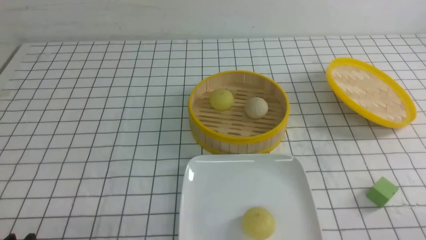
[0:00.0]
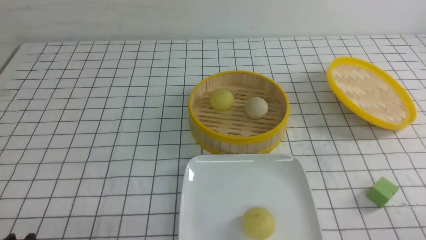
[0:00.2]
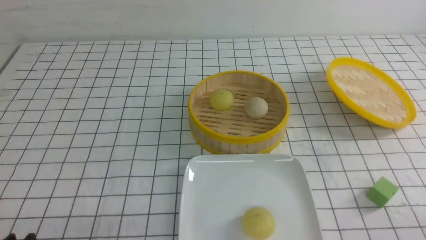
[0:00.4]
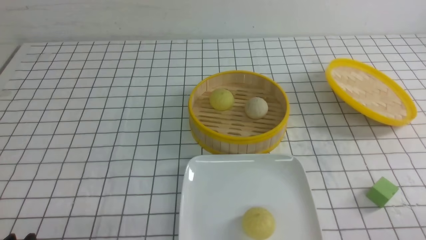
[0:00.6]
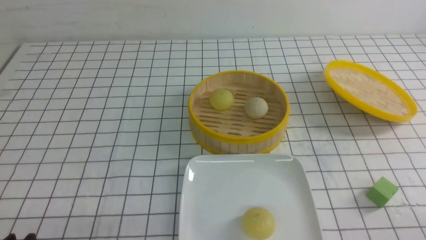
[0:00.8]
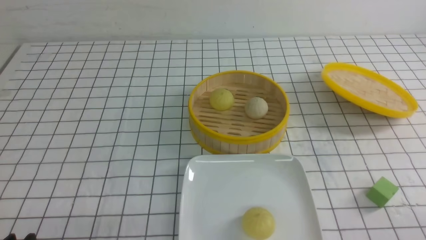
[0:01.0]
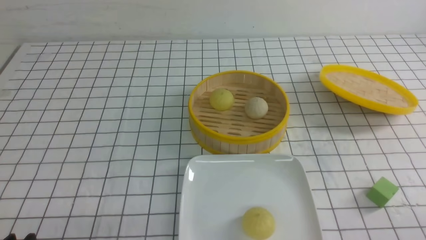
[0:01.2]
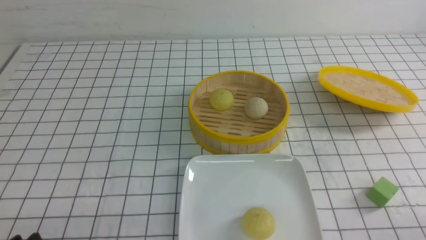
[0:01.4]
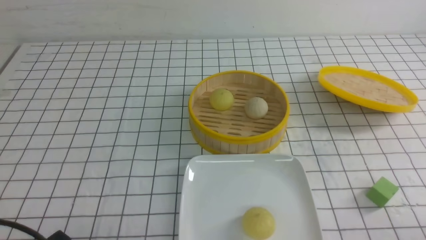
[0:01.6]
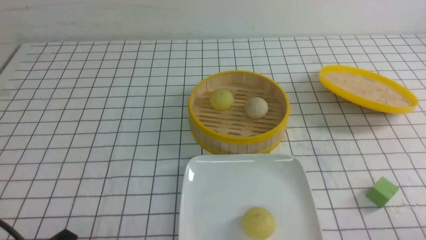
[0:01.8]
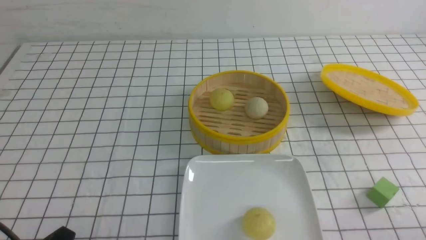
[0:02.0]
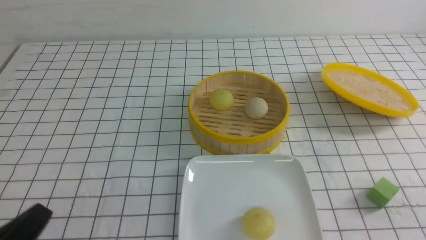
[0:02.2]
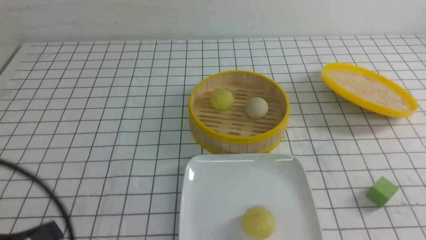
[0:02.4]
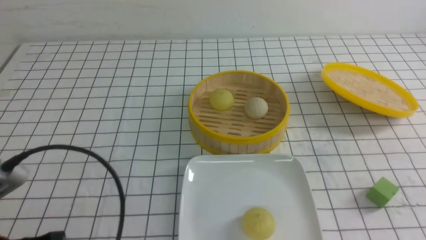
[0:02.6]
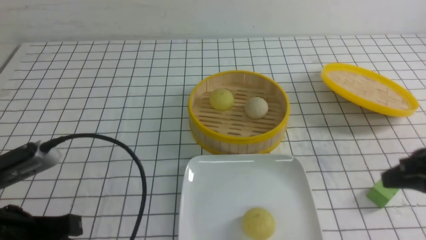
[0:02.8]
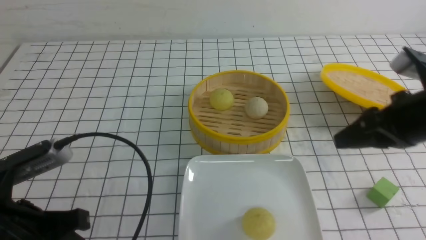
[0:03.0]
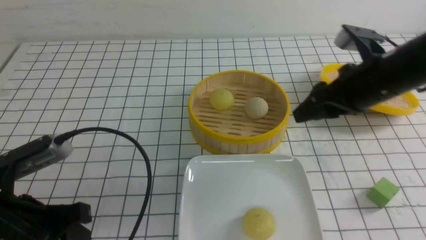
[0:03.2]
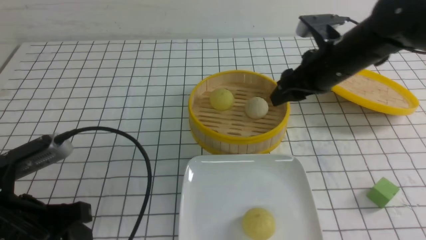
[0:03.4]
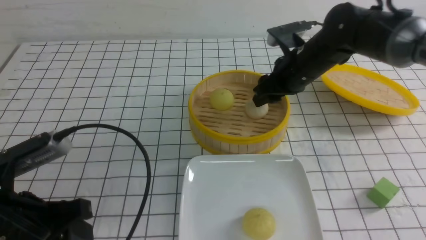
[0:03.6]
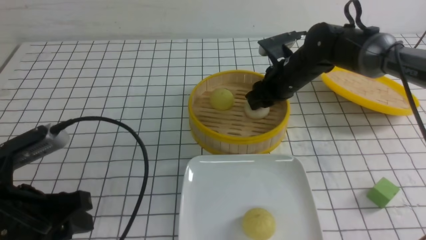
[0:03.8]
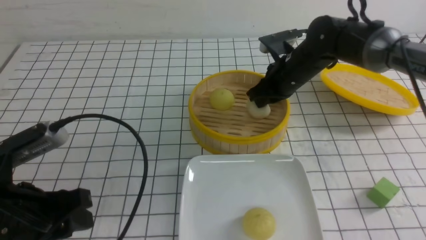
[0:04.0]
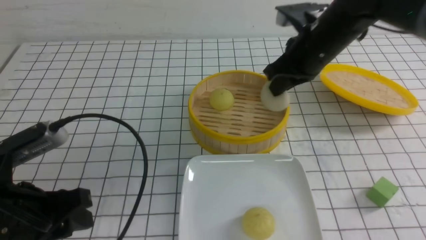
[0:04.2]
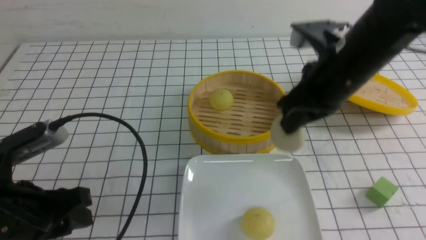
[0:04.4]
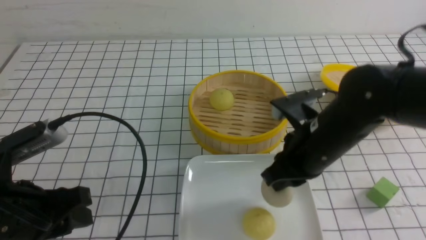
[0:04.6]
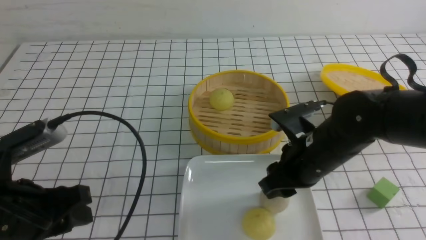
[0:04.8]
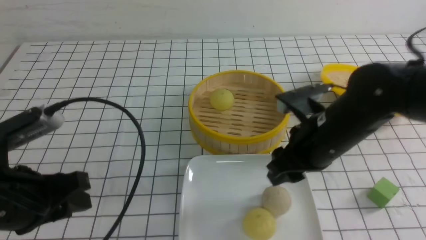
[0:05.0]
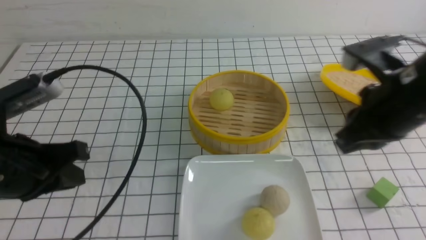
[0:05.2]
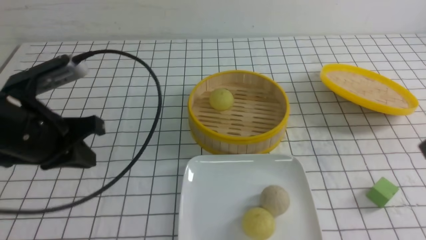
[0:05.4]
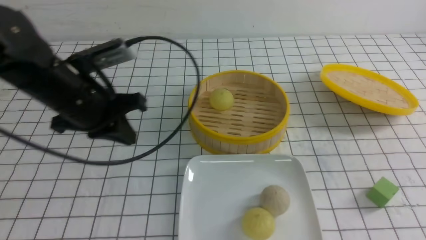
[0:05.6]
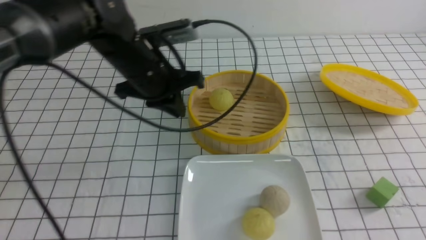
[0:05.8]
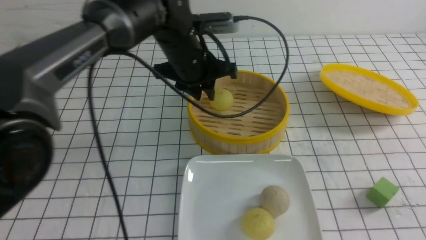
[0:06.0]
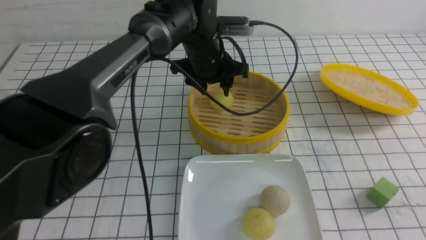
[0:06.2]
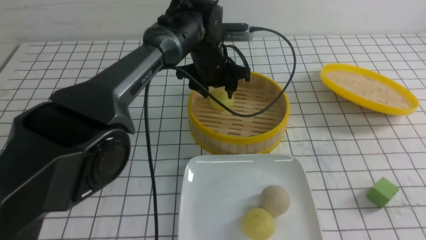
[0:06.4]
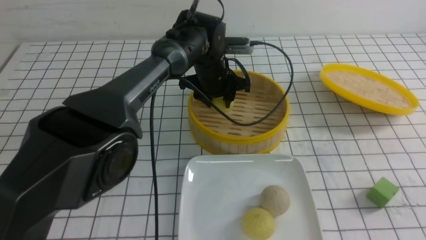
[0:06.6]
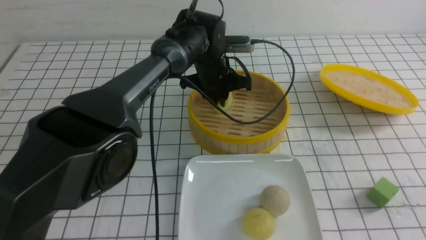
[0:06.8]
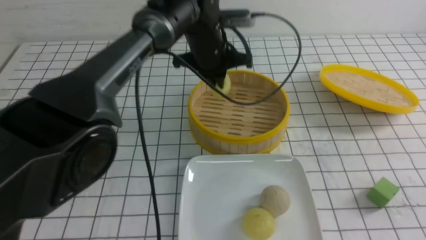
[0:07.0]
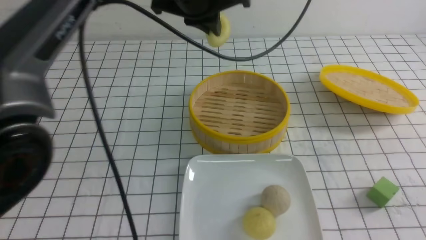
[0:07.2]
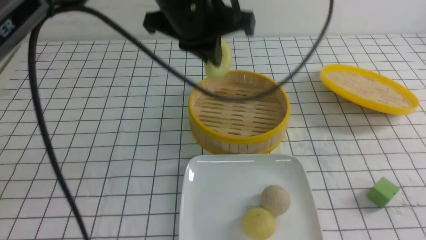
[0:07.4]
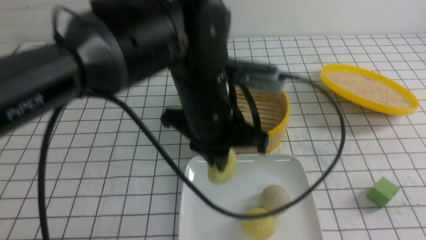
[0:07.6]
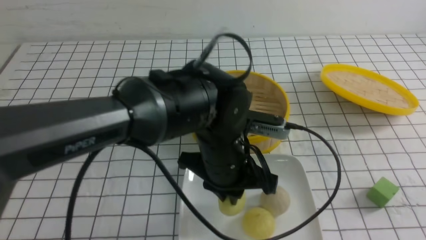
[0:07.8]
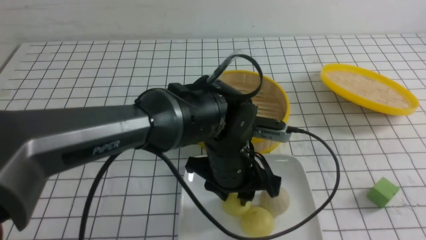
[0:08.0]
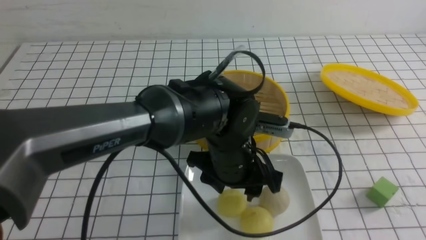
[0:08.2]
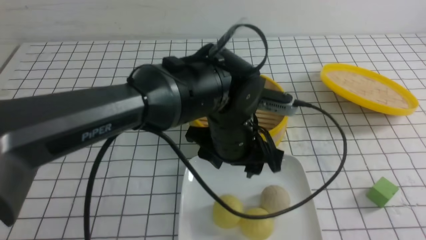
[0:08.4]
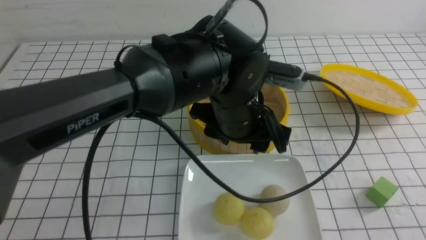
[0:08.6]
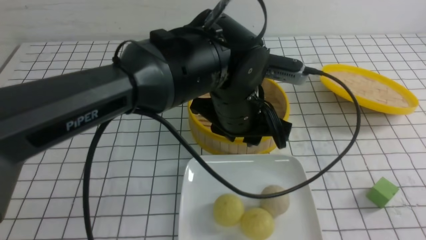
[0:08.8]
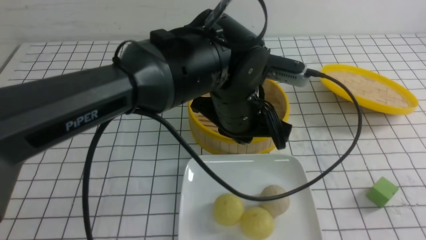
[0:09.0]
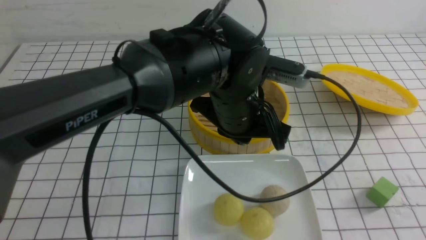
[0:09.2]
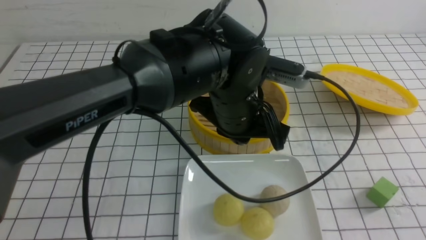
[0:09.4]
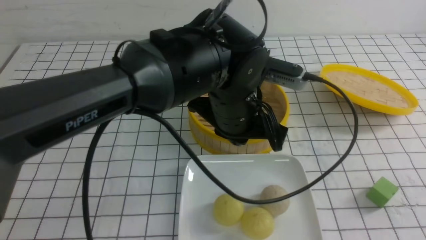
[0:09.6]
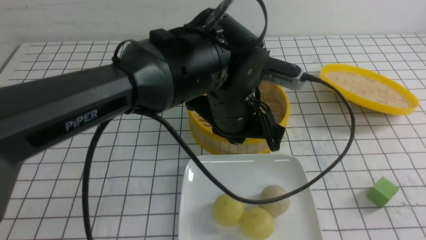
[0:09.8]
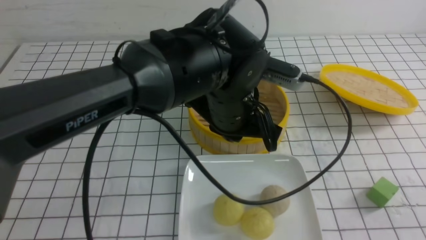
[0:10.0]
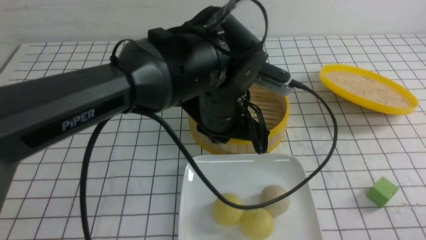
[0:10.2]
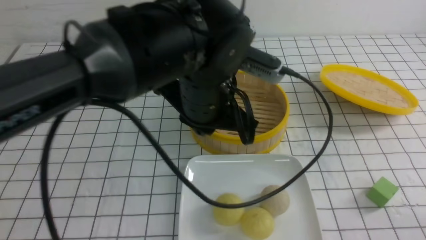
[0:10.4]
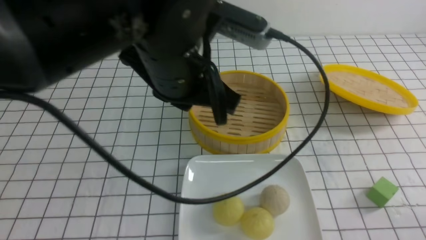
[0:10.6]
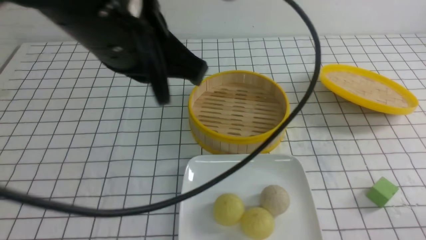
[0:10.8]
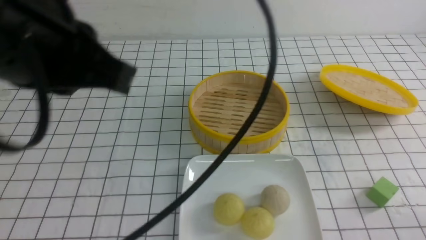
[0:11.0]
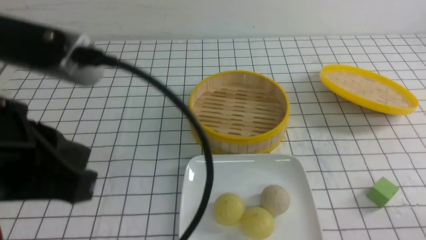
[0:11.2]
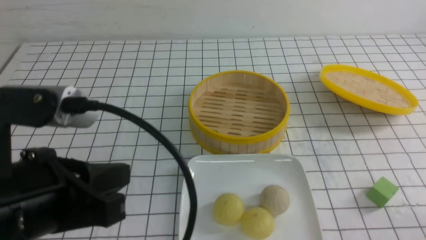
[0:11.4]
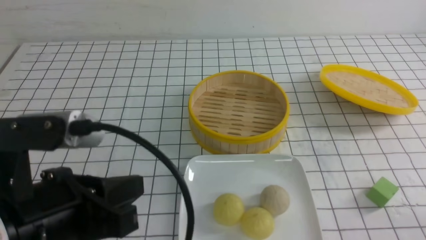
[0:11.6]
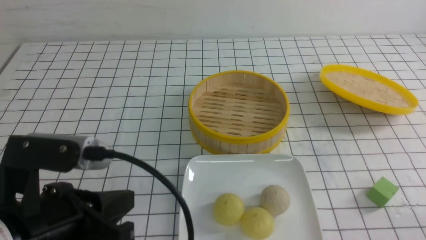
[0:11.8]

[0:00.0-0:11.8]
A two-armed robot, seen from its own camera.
Step, 0:00.0 to 0:04.0: use the right arm to grab the steamed stuffed bun that is closest to it.
Step, 0:04.2 to 0:05.0: use the right arm to put the steamed stuffed bun into the plate.
Step, 0:05.4 to 0:06.8: use the left arm to grab the steamed stuffed bun that is closest to it.
Step, 0:07.2 to 0:09.0: use the left arm to put the steamed stuffed bun into the plate.
0:01.4 to 0:03.0: The left gripper goes roughly 10 cm forward and upward; the right gripper shifts approximately 25 cm forward and upward, and closes, then opens again.
0:03.0 to 0:04.4: The right gripper heads to the left, covering about 10 cm, reaches approximately 20 cm forward, then returns, and closes its fingers.
0:04.4 to 0:06.0: The left gripper is displaced forward and to the right by about 30 cm, and closes, then opens again; the right gripper is displaced backward and to the right by approximately 25 cm, and opens and closes again.
0:06.0 to 0:07.4: The left gripper moves backward and upward, about 10 cm, and closes its fingers.
0:07.4 to 0:08.8: The left gripper travels downward by approximately 10 cm, and opens up; the right gripper heads backward, covering some 10 cm.
0:08.8 to 0:10.4: The left gripper shifts approximately 5 cm upward, and closes its fingers; the right gripper is displaced downward by approximately 10 cm.
0:10.4 to 0:11.8: The left gripper heads backward and to the left, covering approximately 20 cm.

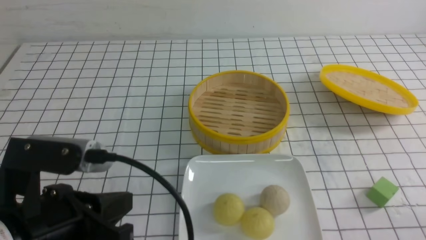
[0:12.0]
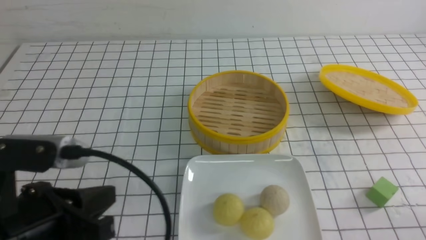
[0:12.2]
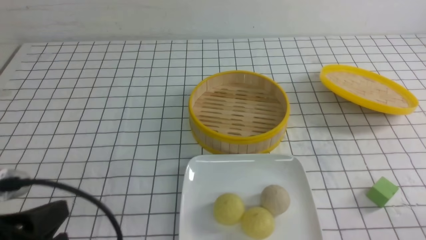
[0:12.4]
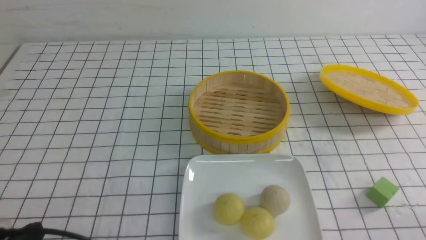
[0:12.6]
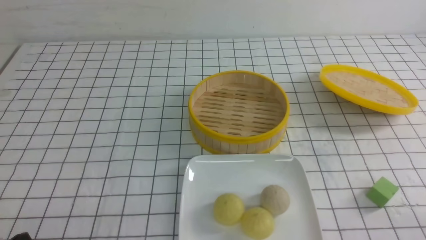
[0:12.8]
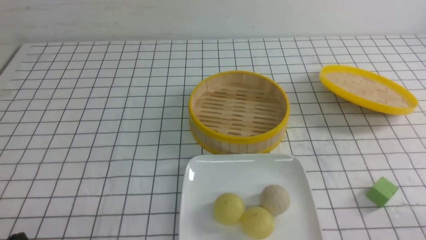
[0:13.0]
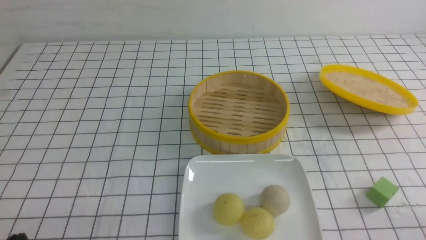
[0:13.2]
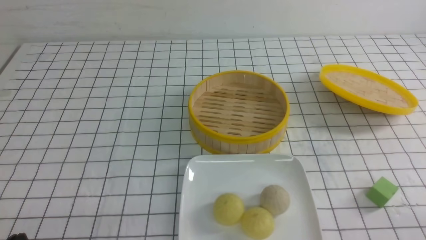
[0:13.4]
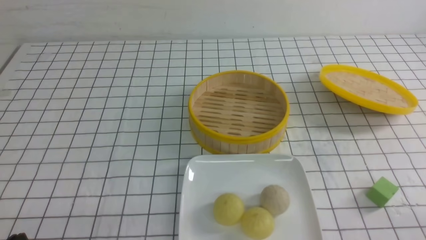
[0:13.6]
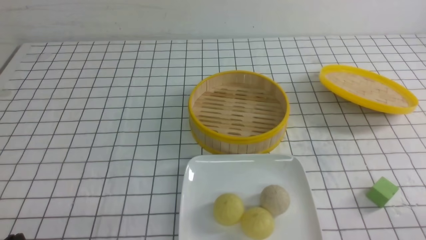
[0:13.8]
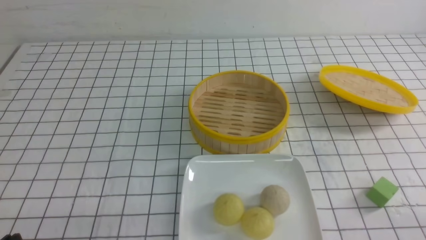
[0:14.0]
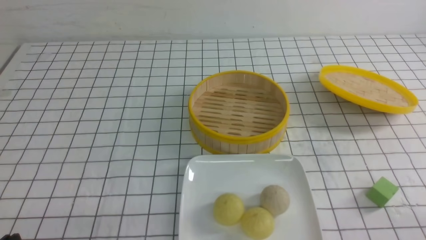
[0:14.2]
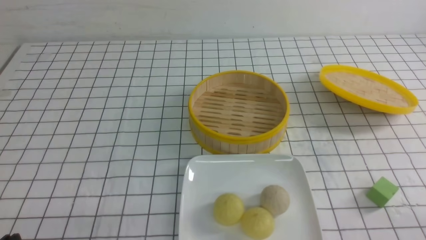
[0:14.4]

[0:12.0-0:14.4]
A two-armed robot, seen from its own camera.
0:12.0 to 0:13.2: The left gripper is displaced downward, to the left and backward by roughly 15 cm.

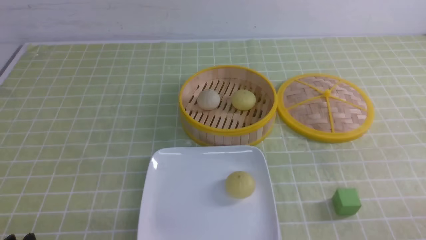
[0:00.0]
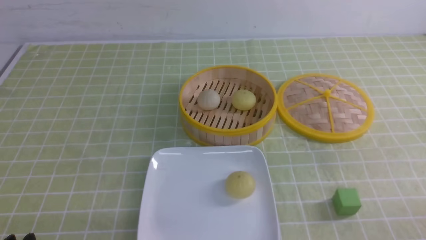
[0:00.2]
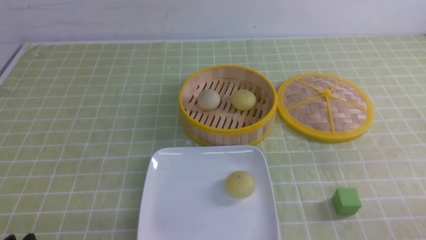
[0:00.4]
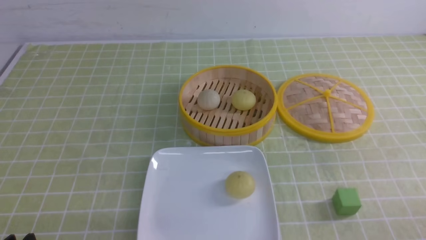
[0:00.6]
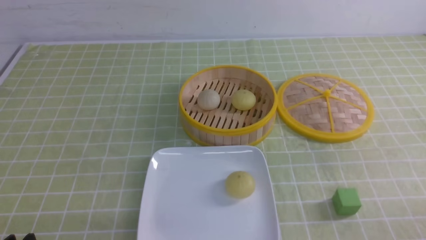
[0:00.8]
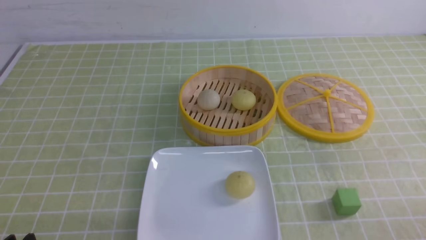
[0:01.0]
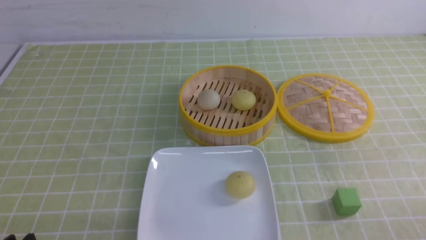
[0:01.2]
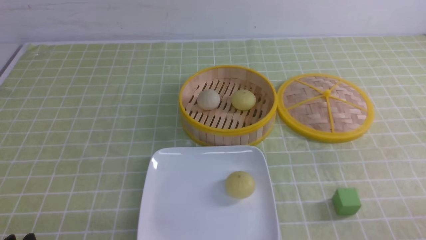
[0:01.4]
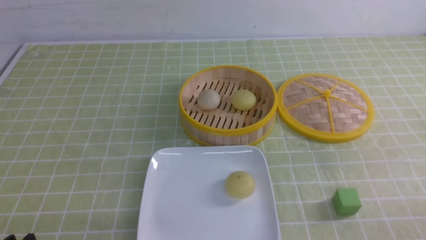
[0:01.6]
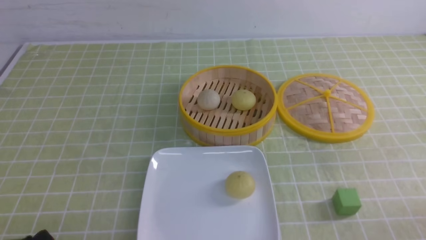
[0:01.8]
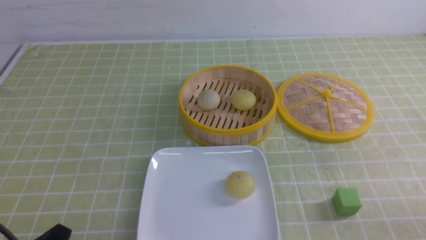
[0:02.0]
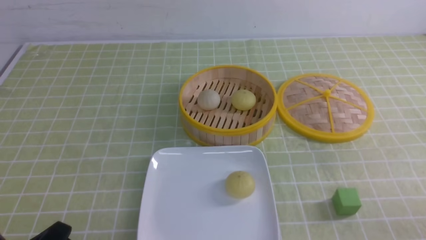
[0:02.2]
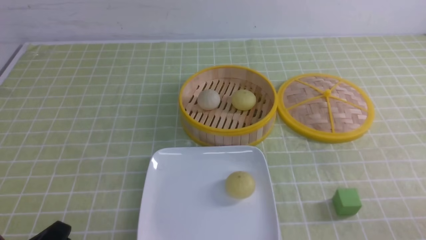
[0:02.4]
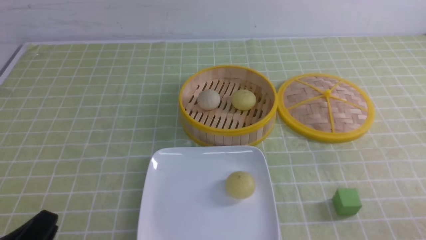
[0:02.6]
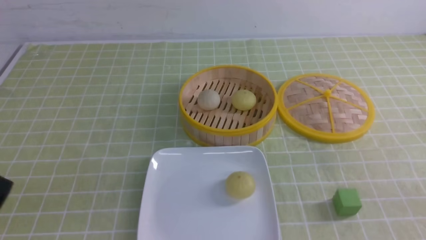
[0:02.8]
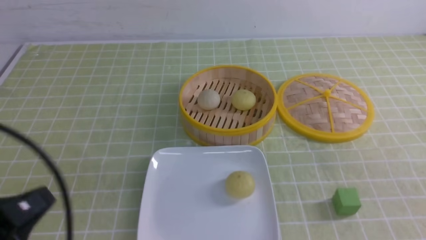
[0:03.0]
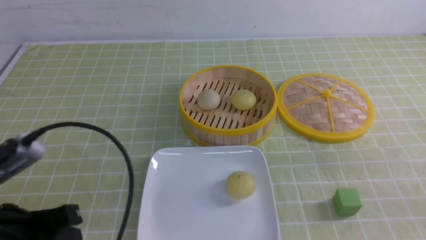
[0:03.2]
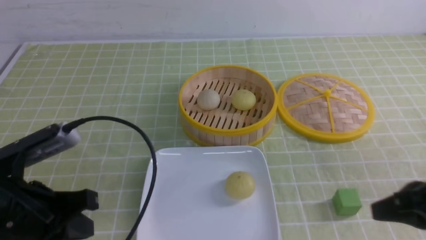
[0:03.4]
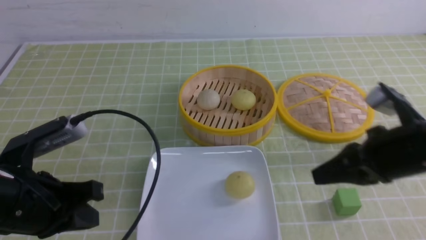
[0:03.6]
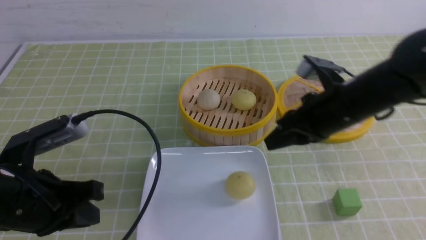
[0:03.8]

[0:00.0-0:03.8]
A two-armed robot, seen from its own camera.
0:00.0 to 0:01.2: Both grippers stay put.
0:02.6 to 0:03.8: The right gripper shifts approximately 30 cm forward and to the left, and closes and opens again; the left gripper is displaced forward by about 10 cm.
